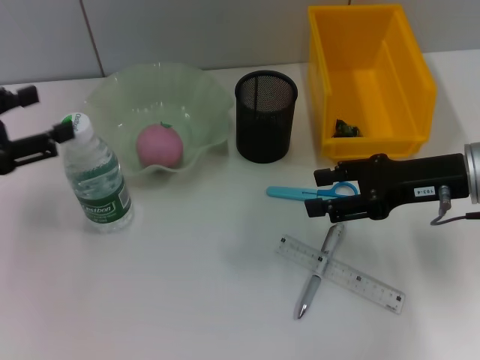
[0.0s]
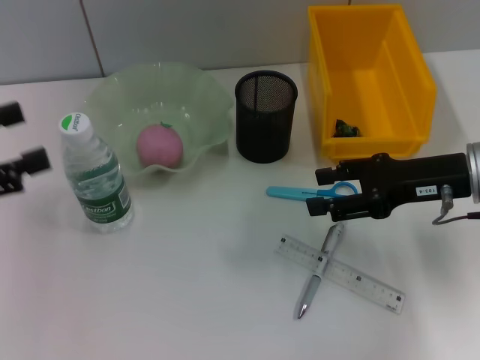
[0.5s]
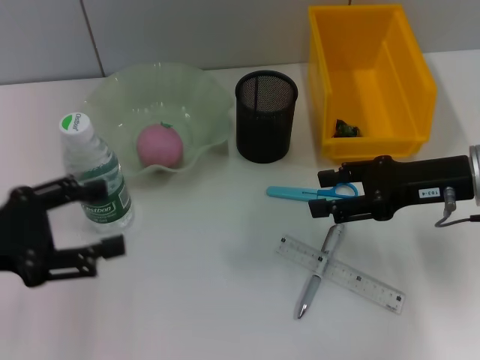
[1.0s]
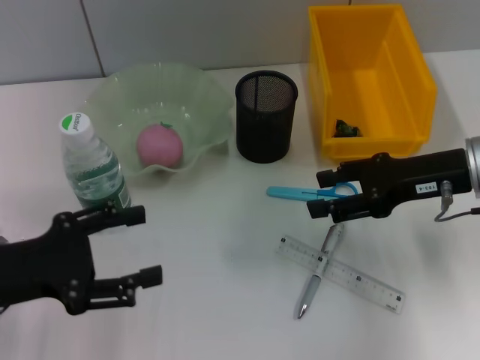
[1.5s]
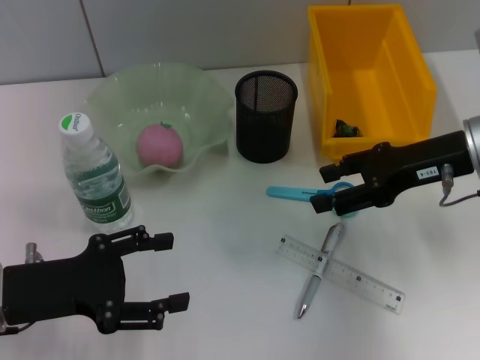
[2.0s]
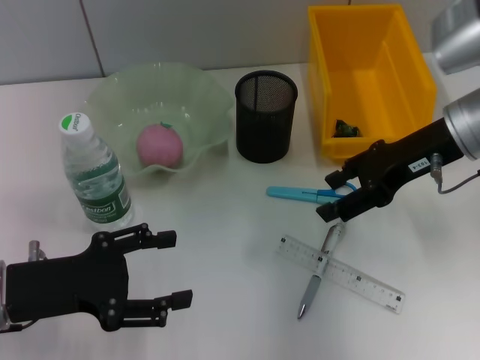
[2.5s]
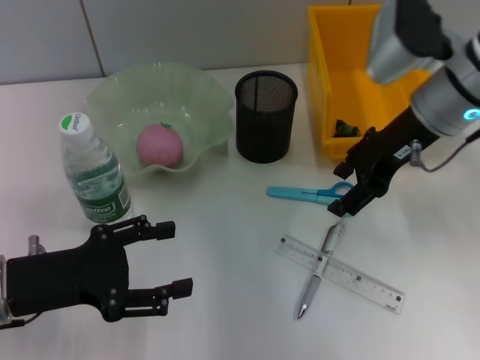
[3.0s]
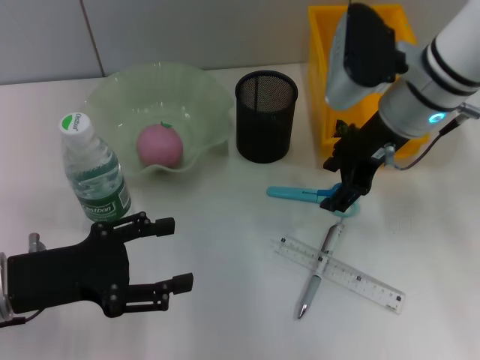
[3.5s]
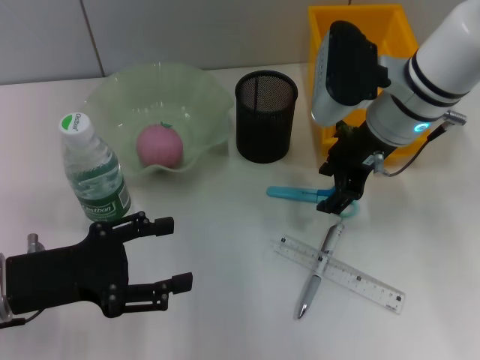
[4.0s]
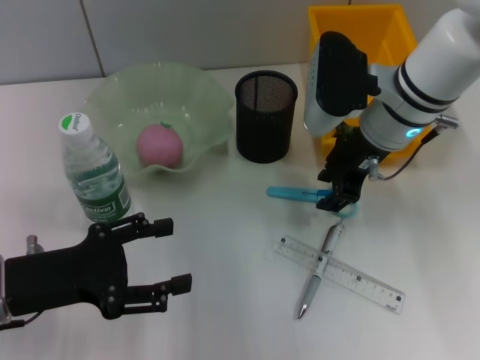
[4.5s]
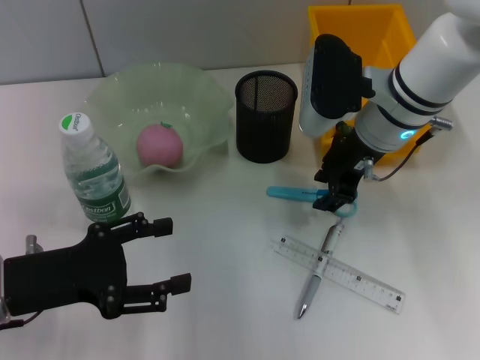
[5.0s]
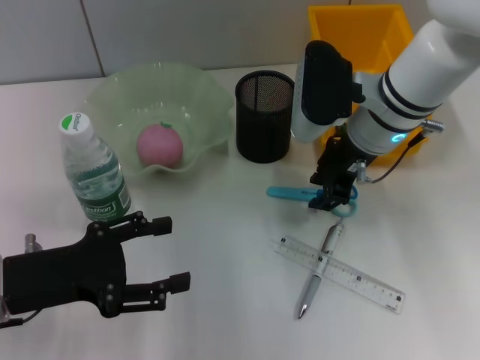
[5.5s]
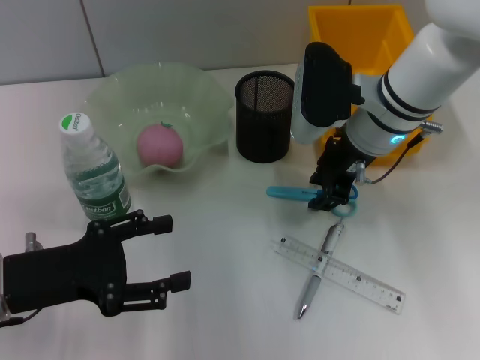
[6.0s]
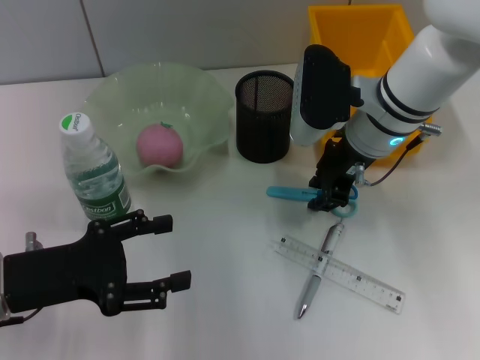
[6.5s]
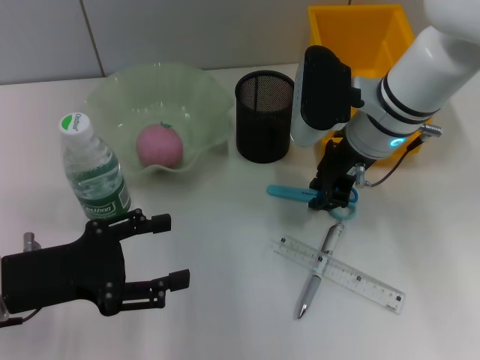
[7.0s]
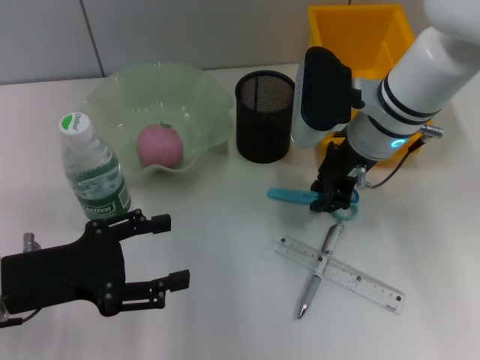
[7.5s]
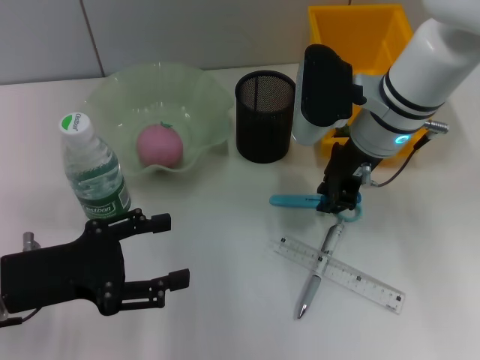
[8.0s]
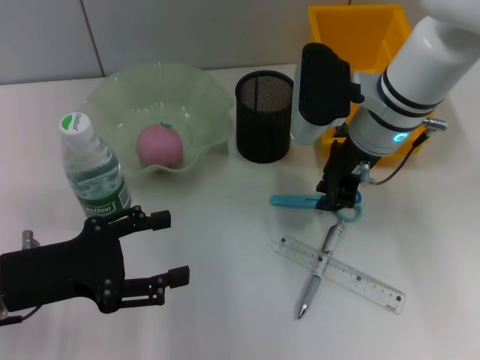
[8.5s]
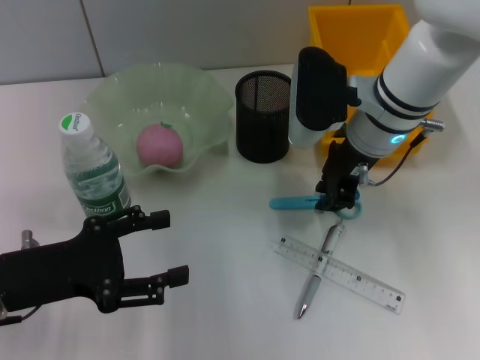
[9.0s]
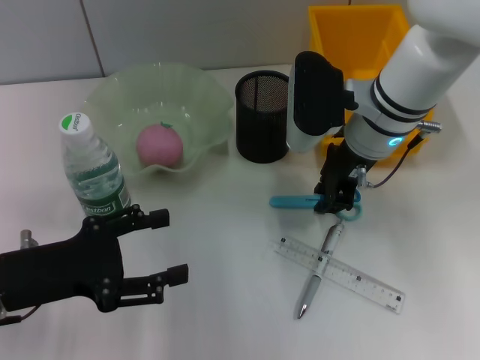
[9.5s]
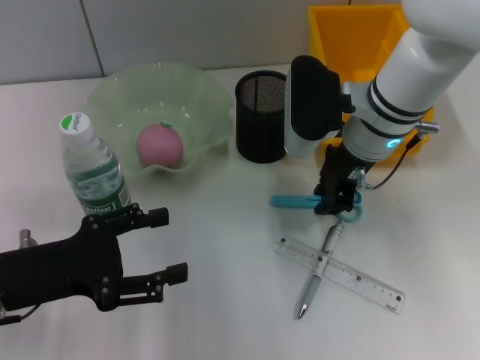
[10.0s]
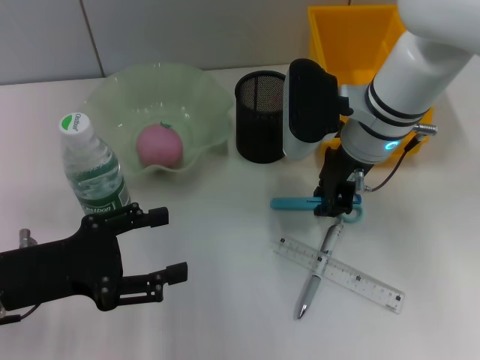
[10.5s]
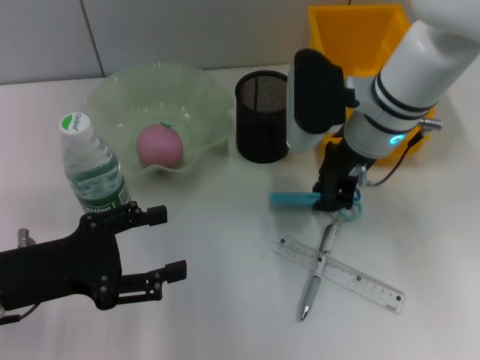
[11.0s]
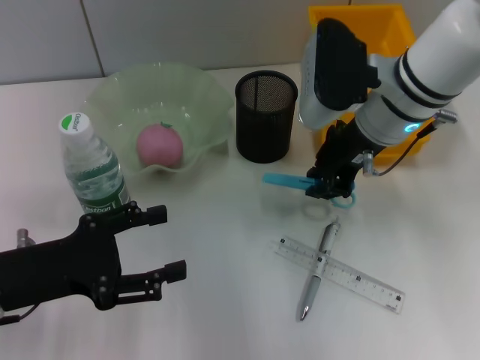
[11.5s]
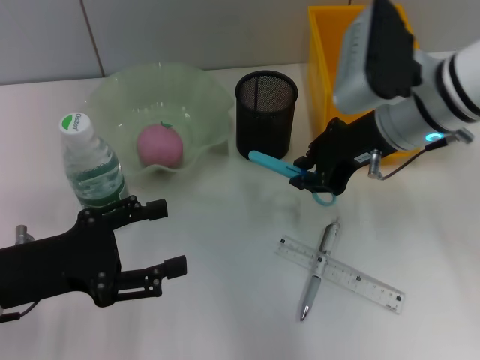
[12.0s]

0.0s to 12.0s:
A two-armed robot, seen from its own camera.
Step, 0.0s to 10.5s: Grab the blue scissors with the right hand.
0.0s to 2.0s: The left gripper is displaced to the right, downward and backward by about 10 cm.
2.0s to 4.0s: The right gripper shifts approximately 10 cm to the left and forward.
4.0s to 6.0s: The right gripper closes up.
6.0s to 8.0s: The two grippers keep their place.
8.0s to 10.0s: Neither gripper changes place.
10.0s to 12.0s: The right gripper ends up about 5 cm from where it was.

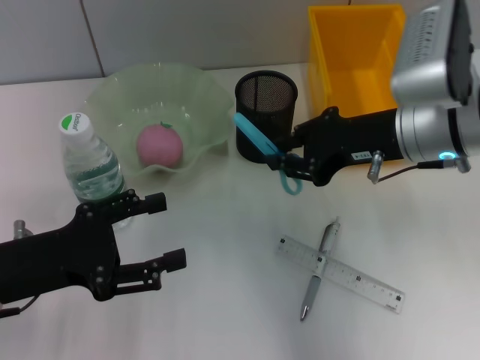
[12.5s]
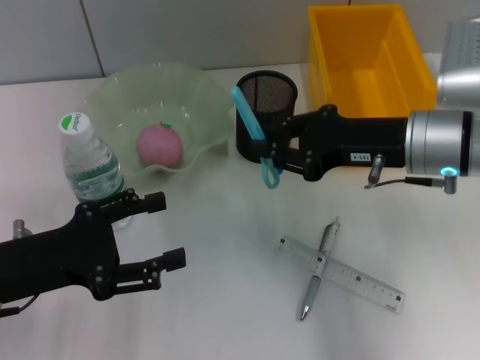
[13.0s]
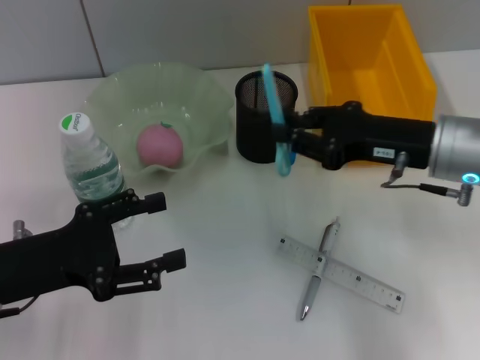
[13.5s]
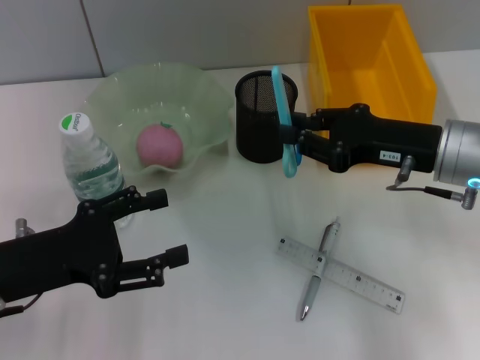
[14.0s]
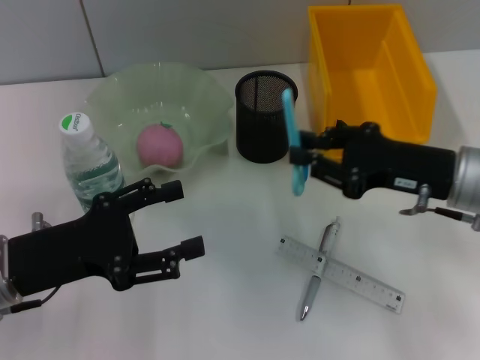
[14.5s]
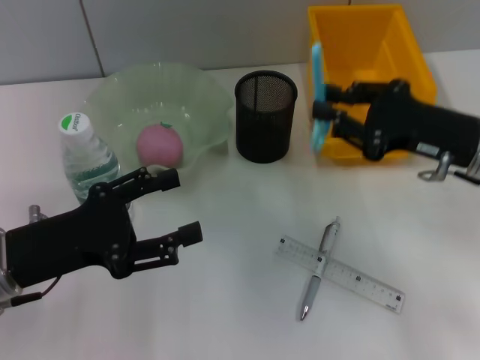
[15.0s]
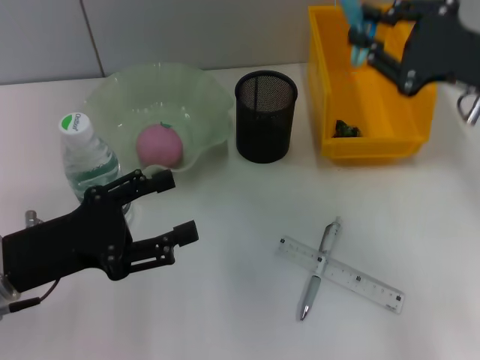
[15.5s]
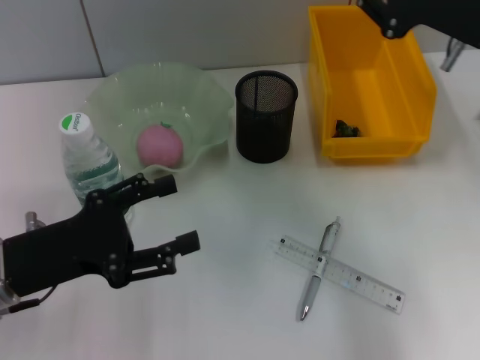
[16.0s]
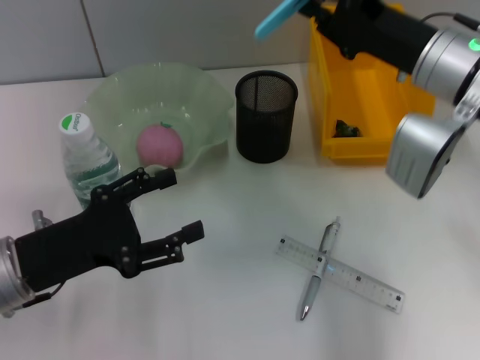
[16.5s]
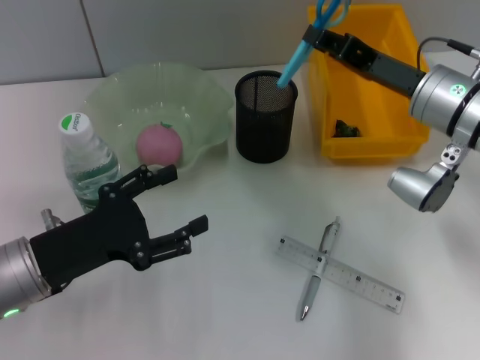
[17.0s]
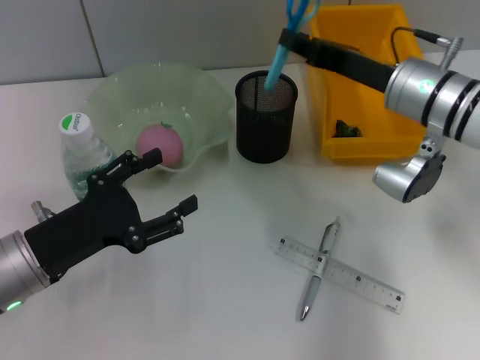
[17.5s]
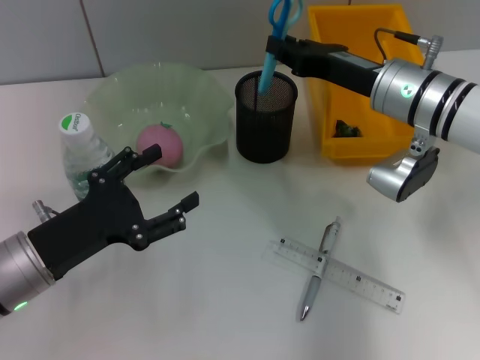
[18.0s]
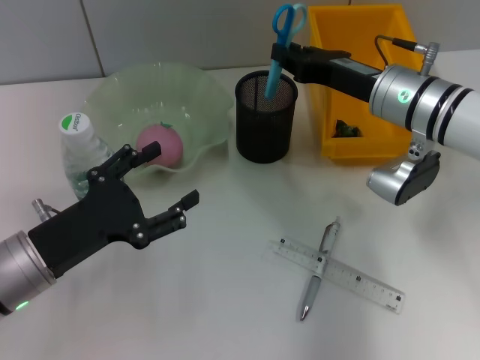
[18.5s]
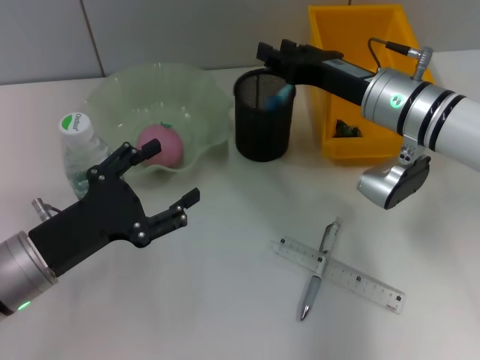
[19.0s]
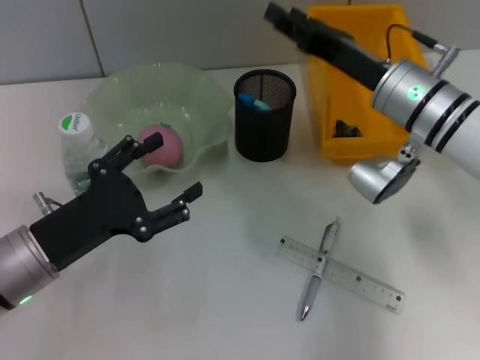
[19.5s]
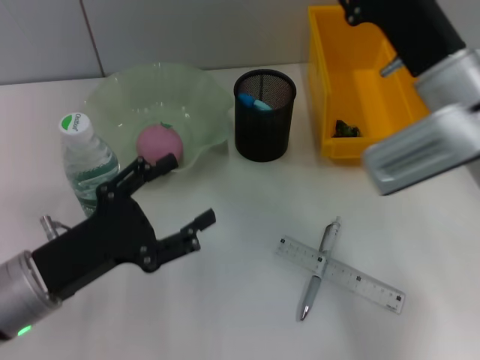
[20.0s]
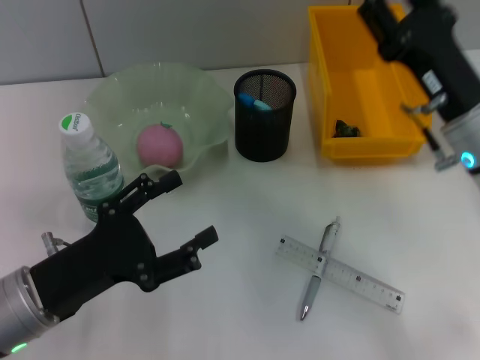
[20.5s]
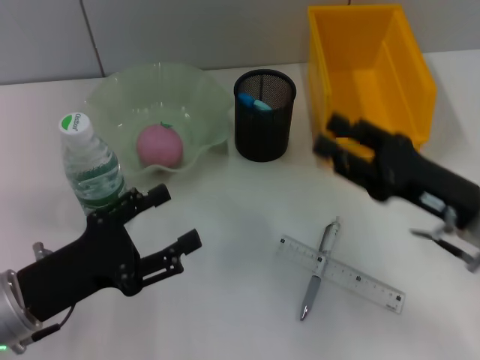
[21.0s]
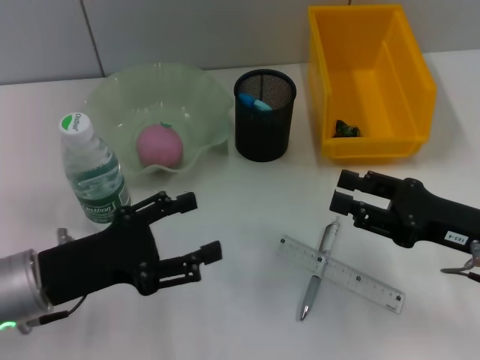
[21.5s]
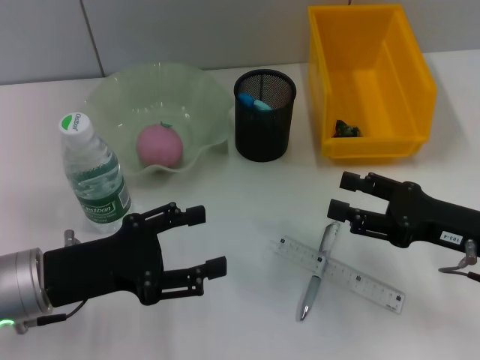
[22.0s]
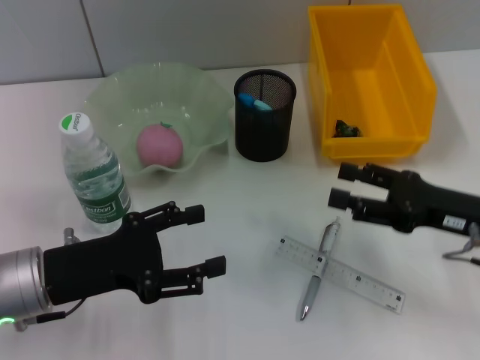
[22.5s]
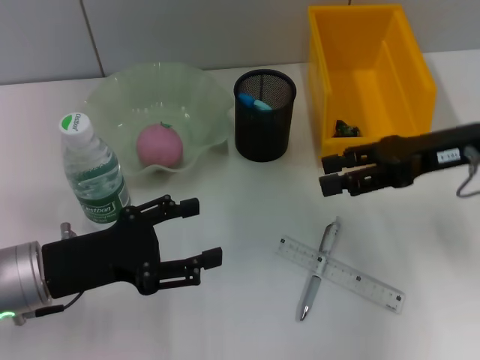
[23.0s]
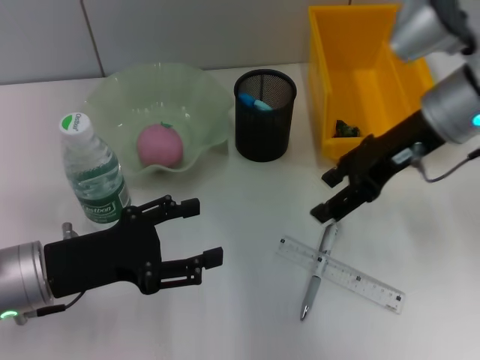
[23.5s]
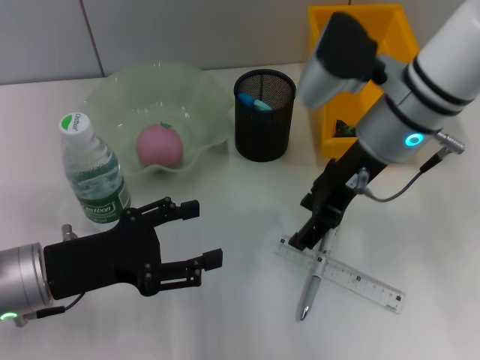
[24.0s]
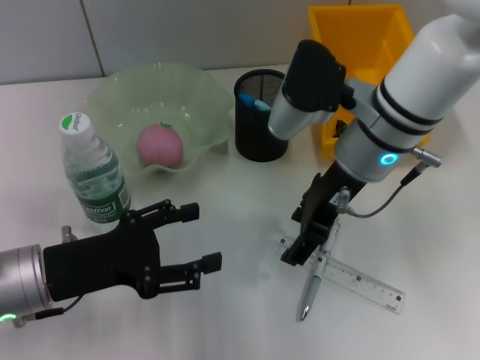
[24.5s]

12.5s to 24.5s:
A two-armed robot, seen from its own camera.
Step, 12.5s to 19.0s: Place the blue scissors into the pen holder with the right hand.
12.5s to 14.5s: The right gripper moves downward, roughly 5 cm.
14.5s to 16.5s: The right gripper shifts about 10 cm forward and upward.
16.5s to 18.5s: The right gripper goes about 5 cm downward.
18.5s to 20.5s: The right gripper is displaced backward by some 10 cm.
20.5s to 22.5s: The right gripper is displaced to the right by roughly 5 cm.
22.5s to 24.5s: The right gripper moves to the left, forward and upward, roughly 20 cm.

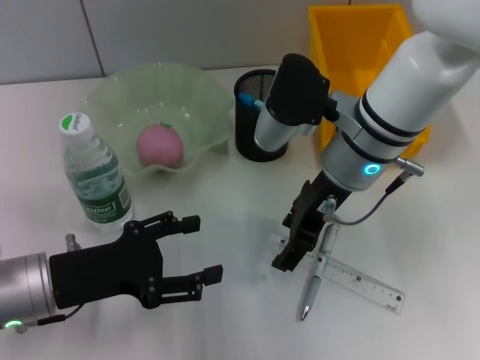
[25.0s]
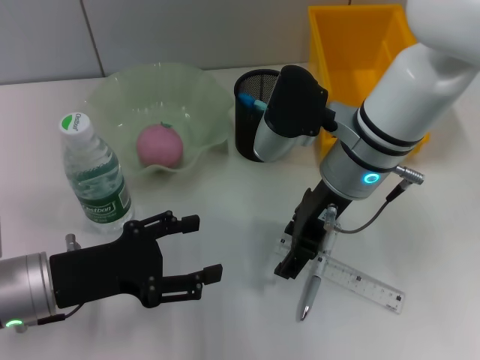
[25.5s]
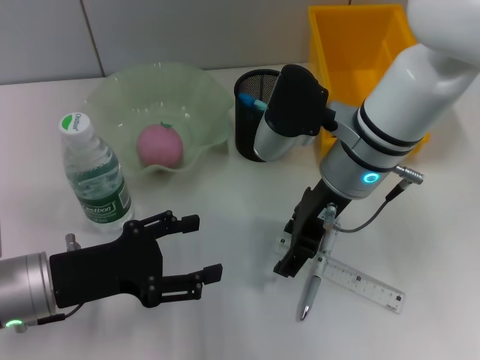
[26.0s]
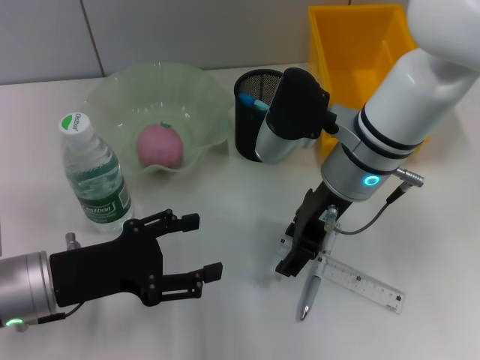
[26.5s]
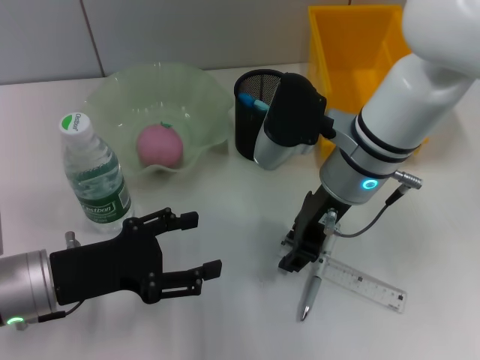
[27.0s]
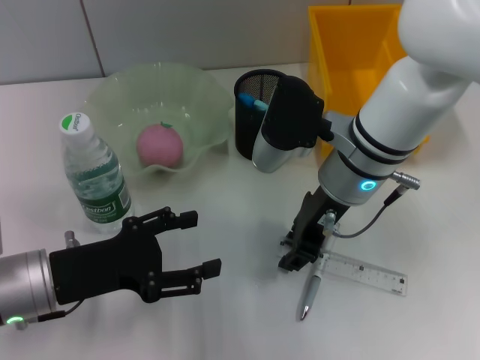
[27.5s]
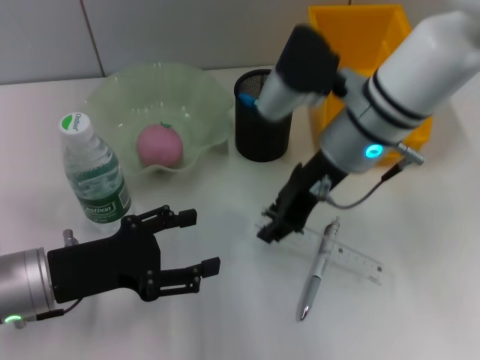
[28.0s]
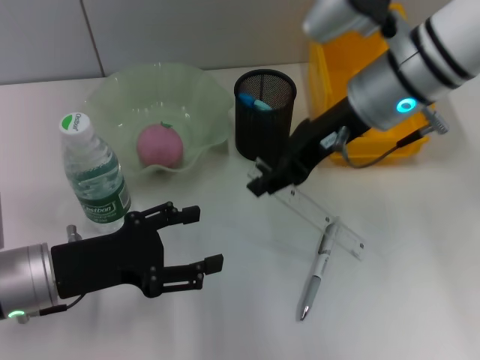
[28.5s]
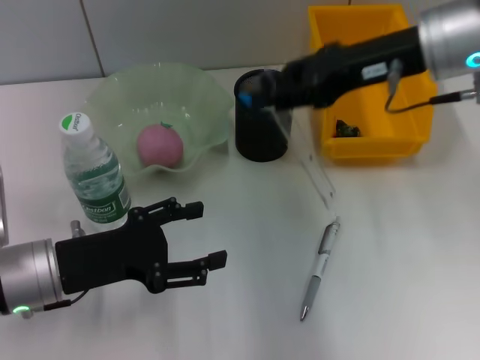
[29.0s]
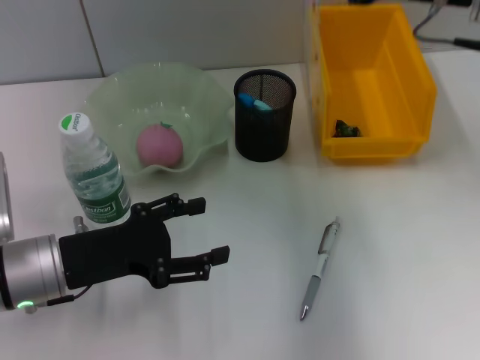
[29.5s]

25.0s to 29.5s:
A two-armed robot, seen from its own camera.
Step, 25.0s to 27.0s: Grab the ruler with the right hand.
25.0s to 27.0s: The right gripper closes its fingers.
27.0s to 29.5s: The right gripper is displaced to the right and upward by about 15 cm.
